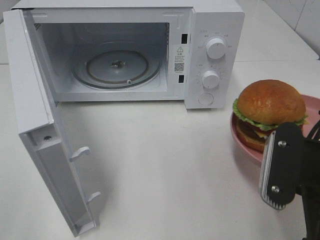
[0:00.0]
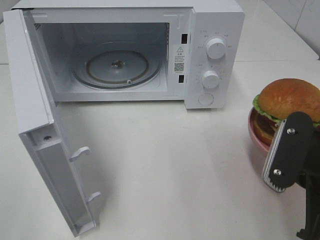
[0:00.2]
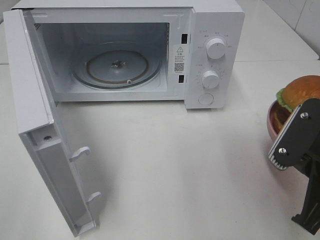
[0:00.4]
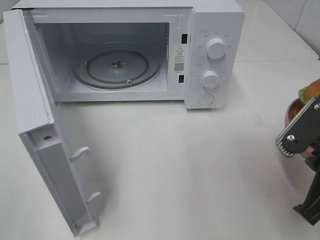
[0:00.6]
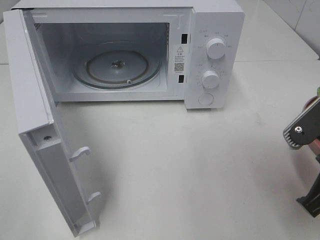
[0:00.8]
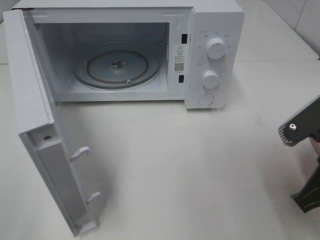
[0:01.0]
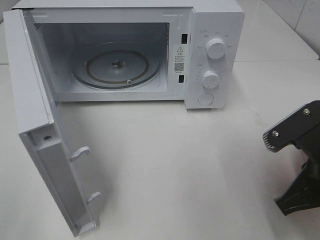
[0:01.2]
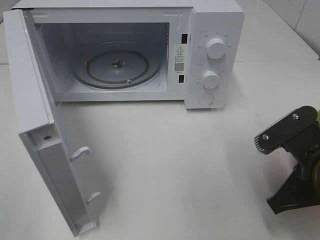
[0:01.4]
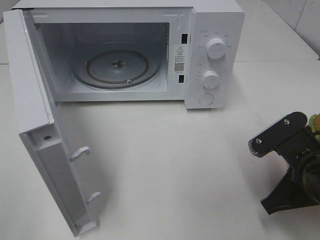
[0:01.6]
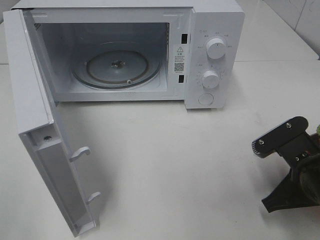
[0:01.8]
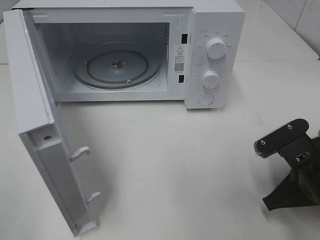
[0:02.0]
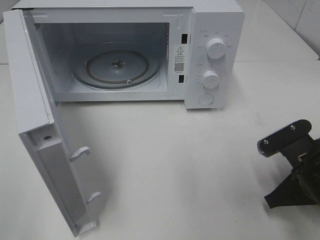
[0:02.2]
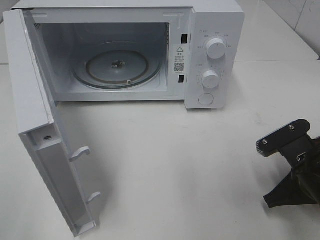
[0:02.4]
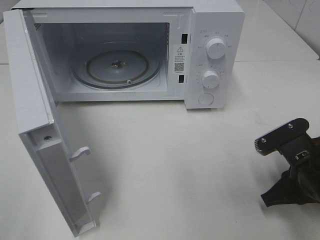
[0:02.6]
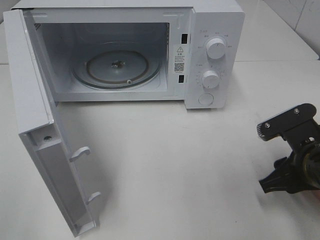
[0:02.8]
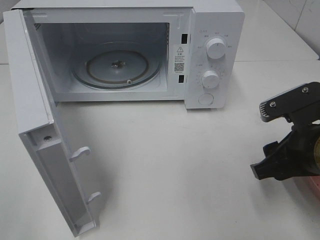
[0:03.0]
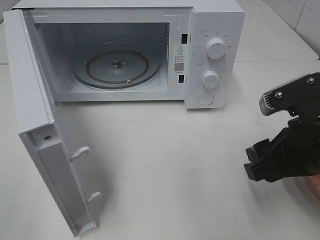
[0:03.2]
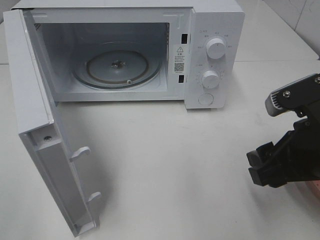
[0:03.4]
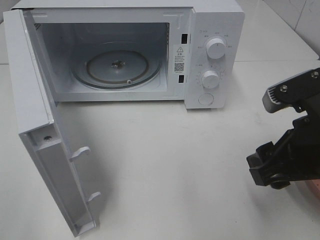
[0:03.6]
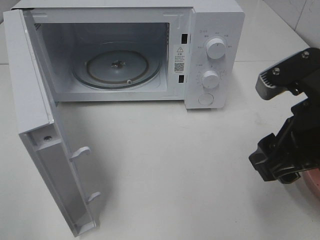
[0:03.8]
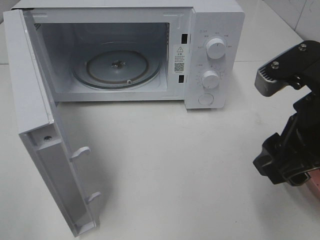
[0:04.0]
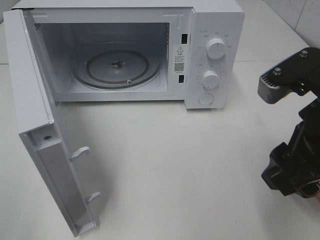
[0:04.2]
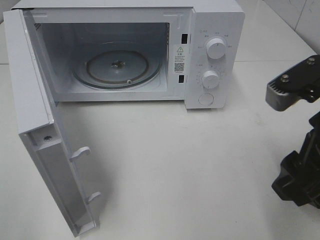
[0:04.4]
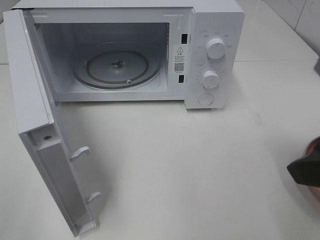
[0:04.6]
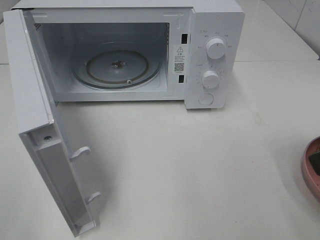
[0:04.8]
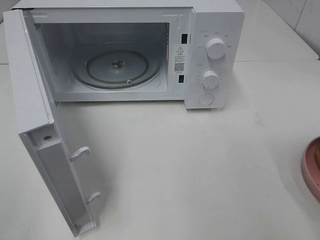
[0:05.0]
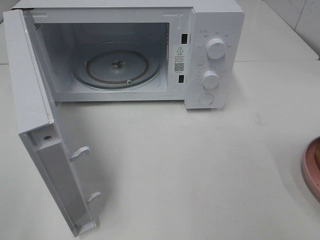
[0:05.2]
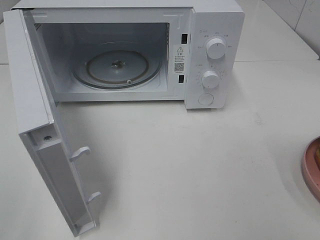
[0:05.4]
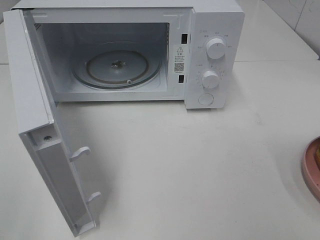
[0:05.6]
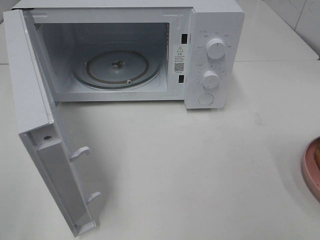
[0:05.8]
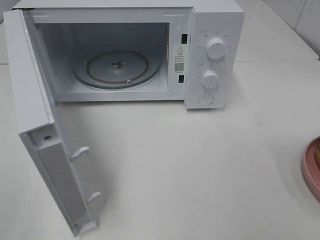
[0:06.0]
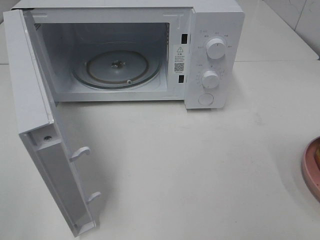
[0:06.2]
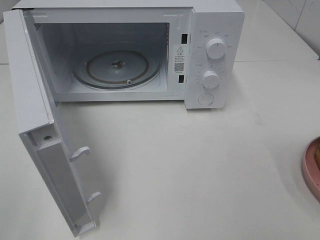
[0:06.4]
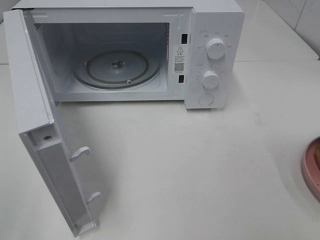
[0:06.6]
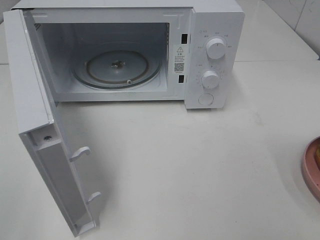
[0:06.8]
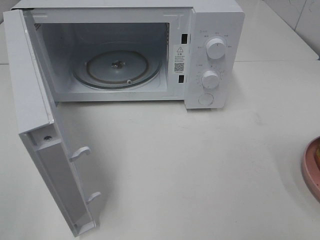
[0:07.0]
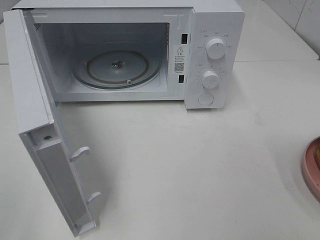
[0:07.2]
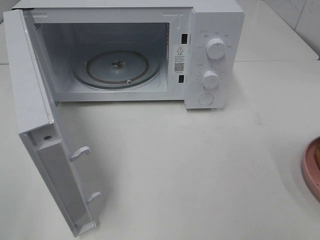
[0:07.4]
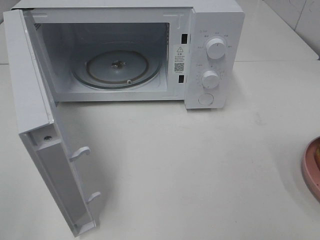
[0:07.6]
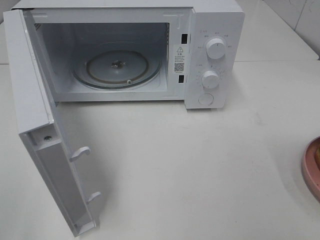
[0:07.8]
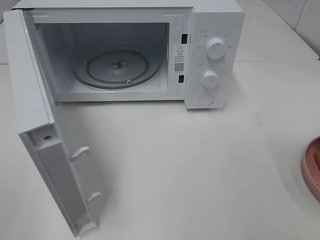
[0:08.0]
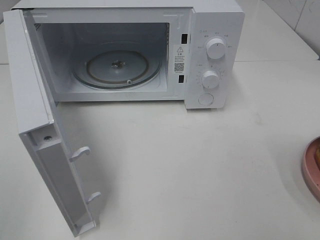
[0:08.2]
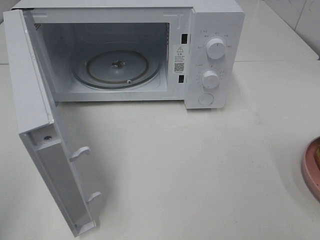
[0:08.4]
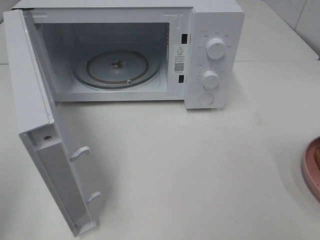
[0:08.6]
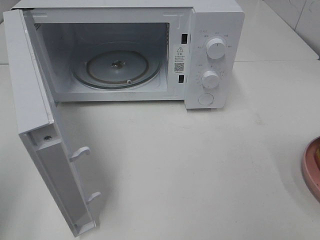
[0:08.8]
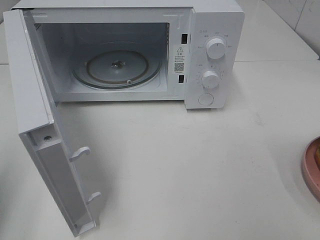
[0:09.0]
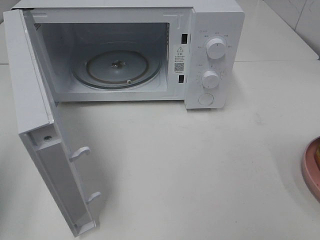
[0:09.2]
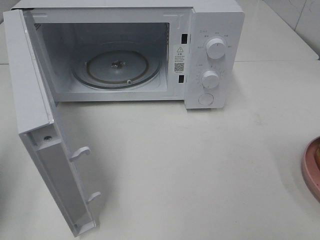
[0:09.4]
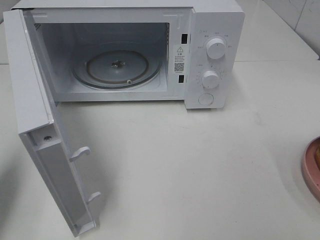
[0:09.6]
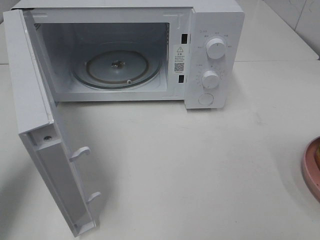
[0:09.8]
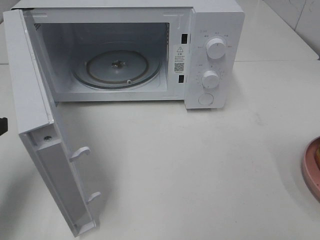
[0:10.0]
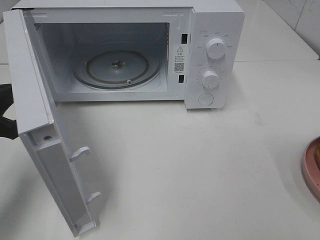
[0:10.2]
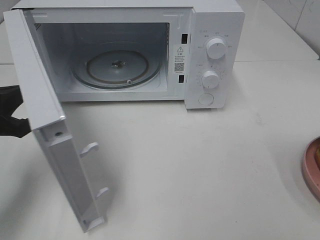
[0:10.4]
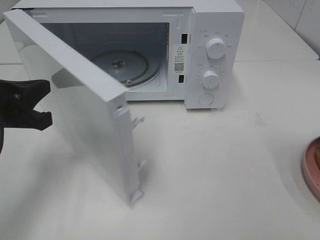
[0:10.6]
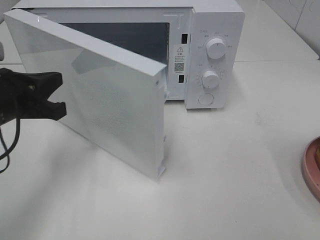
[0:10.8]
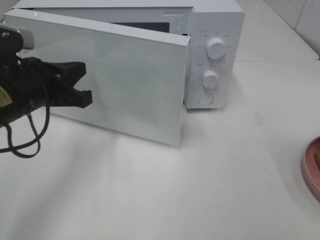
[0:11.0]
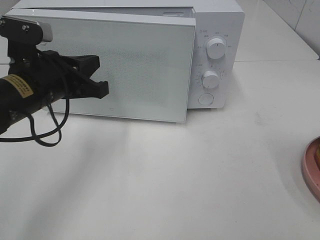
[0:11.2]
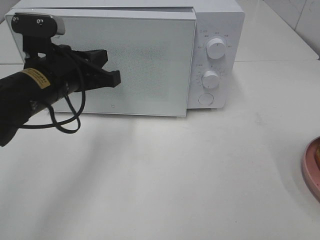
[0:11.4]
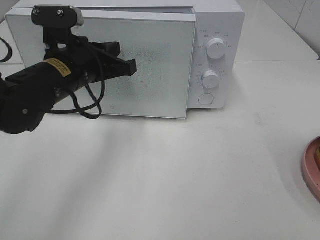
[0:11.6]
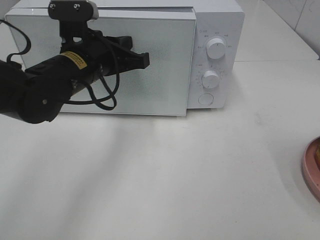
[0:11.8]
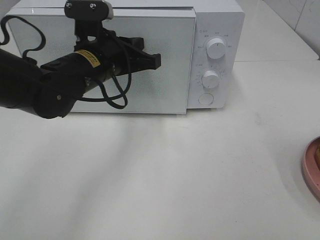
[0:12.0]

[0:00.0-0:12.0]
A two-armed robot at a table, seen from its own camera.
Task of the whole recording: Heat the burger.
Step, 0:00.0 to 0:02.6: Right hand: place the plate on the table.
0:00.0 to 0:01.6: The right gripper moves downward, roughly 5 cm.
0:01.6 to 0:03.0: The right gripper opens its fingers.
0:03.0 to 0:04.4: The right gripper goes about 10 cm upward.
0:04.4 to 0:06.0: The right gripper moves backward and to the right, roughly 20 cm.
0:06.0 to 0:07.6: Neither gripper changes place.
0:09.0 to 0:10.4: The left gripper is displaced forward, downward and to the right by roughly 15 cm.
0:10.4 to 0:12.0: The left gripper shifts some 20 cm to the right and forward.

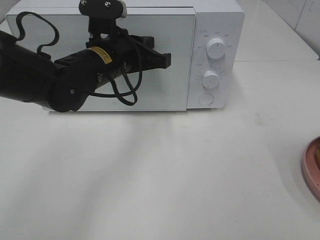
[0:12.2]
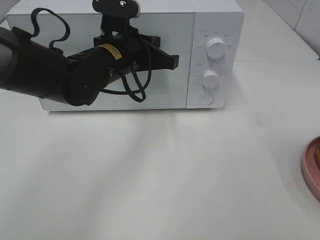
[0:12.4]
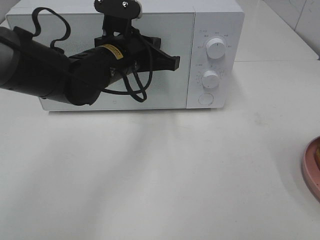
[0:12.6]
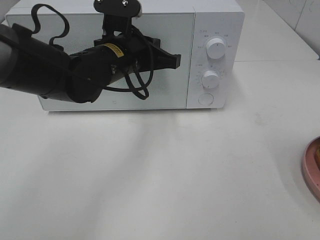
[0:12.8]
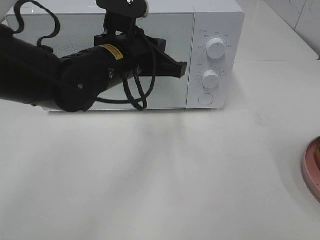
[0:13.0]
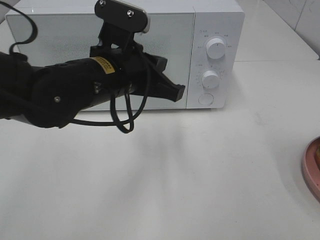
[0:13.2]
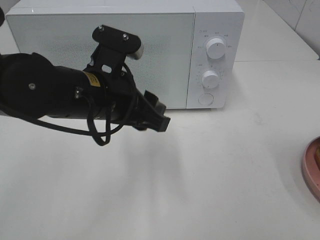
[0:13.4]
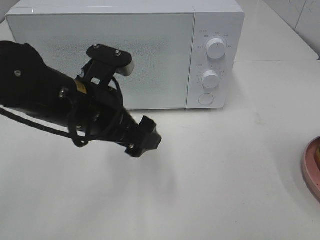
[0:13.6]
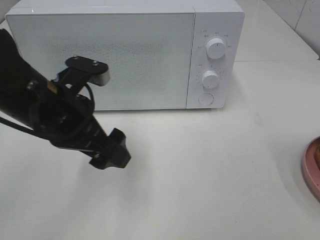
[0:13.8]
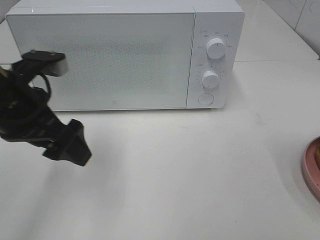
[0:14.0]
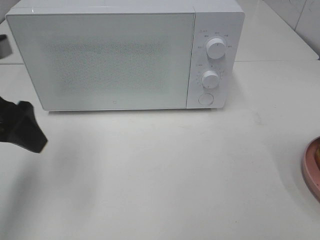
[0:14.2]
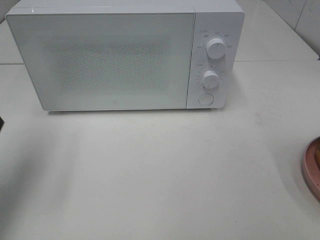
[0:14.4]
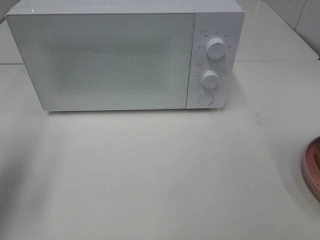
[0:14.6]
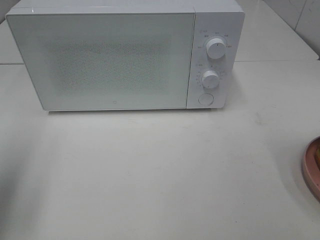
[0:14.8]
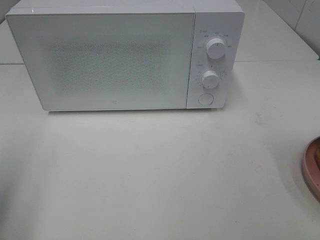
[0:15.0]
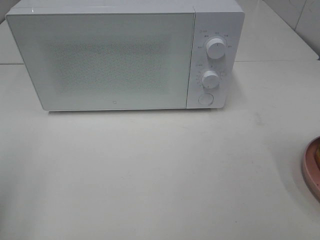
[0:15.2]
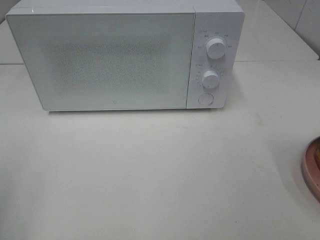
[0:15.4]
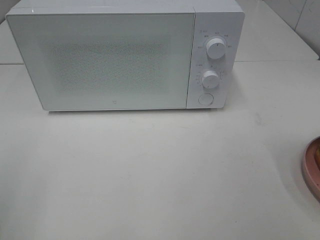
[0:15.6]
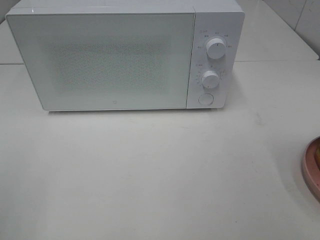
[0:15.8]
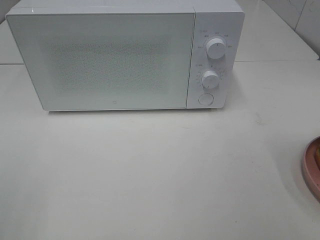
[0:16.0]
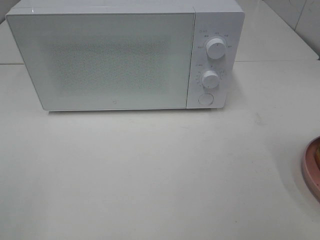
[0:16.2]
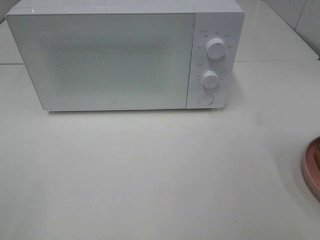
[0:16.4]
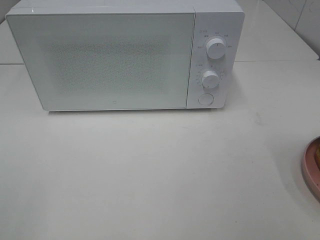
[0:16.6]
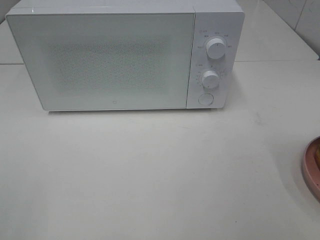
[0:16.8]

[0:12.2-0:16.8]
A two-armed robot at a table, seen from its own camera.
Task of the whole recording: Heat the burger.
0:12.2 to 0:13.8: The left gripper travels backward and to the left by some 10 cm, and opens its fingers.
0:13.8 to 0:15.2: The left gripper shifts roughly 25 cm to the left and backward.

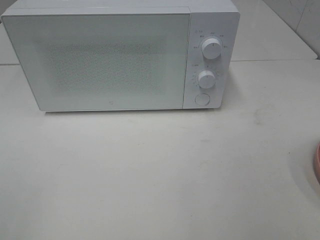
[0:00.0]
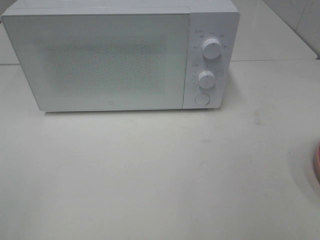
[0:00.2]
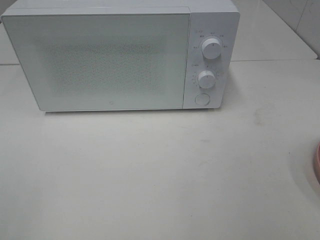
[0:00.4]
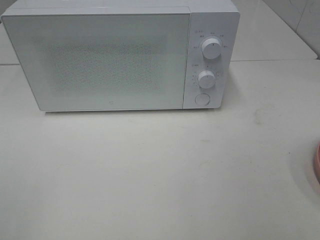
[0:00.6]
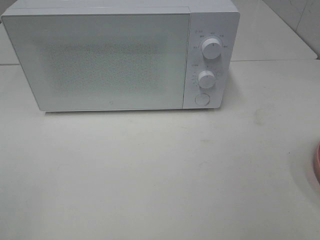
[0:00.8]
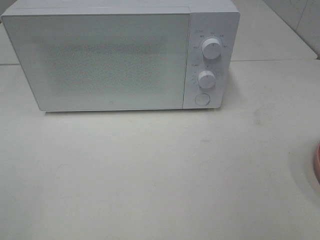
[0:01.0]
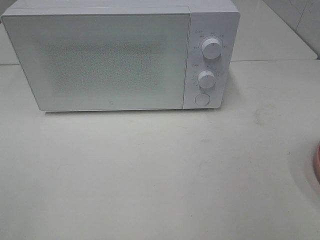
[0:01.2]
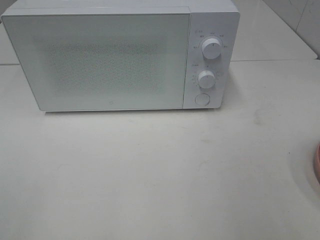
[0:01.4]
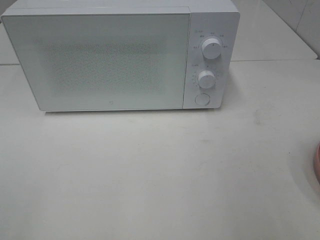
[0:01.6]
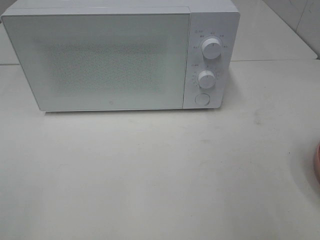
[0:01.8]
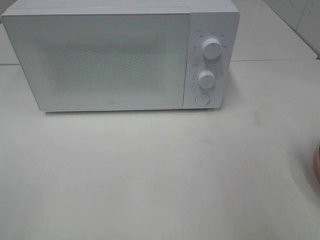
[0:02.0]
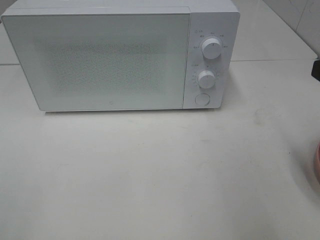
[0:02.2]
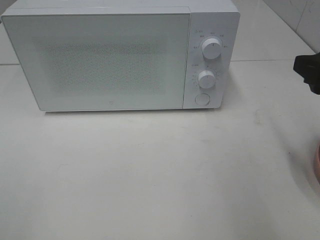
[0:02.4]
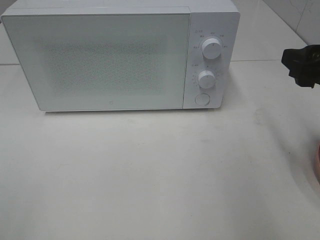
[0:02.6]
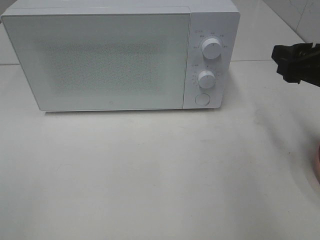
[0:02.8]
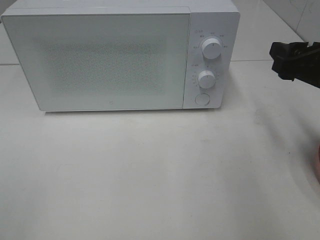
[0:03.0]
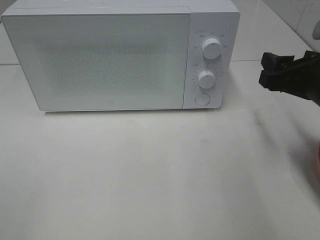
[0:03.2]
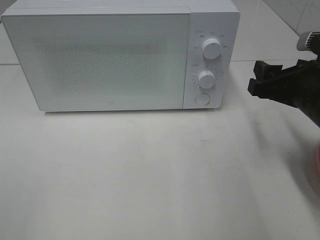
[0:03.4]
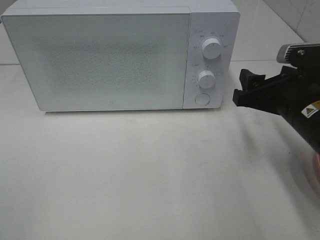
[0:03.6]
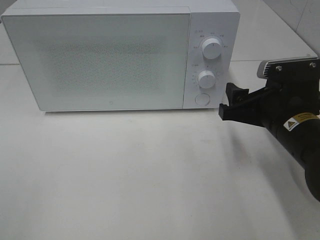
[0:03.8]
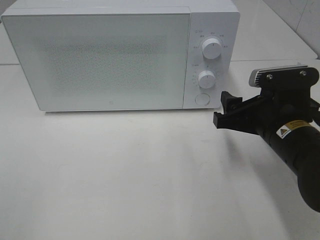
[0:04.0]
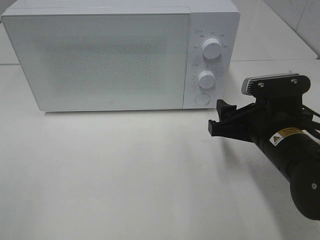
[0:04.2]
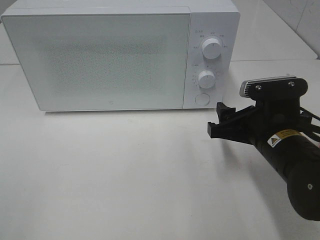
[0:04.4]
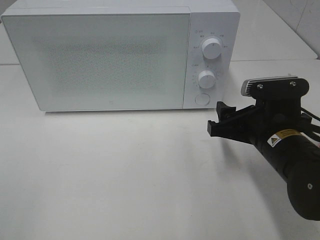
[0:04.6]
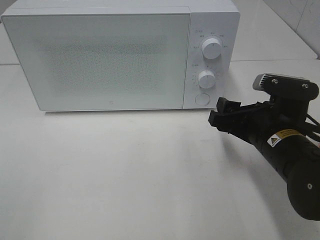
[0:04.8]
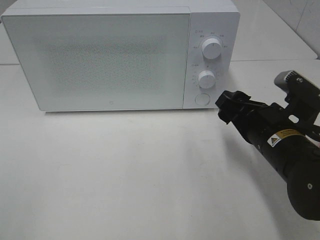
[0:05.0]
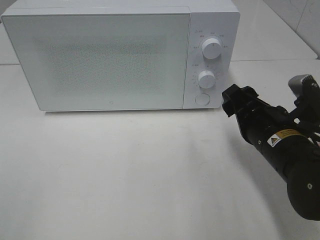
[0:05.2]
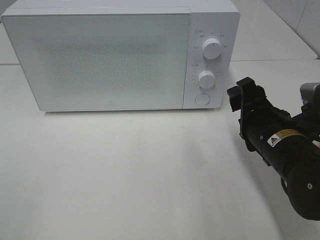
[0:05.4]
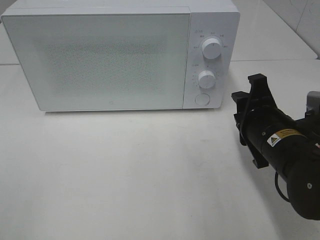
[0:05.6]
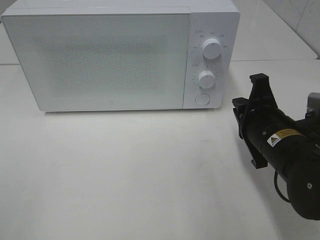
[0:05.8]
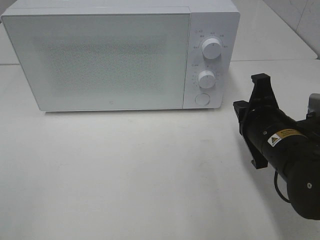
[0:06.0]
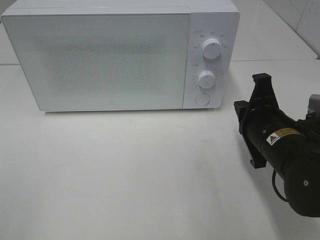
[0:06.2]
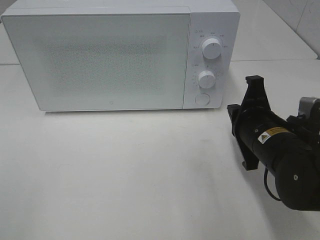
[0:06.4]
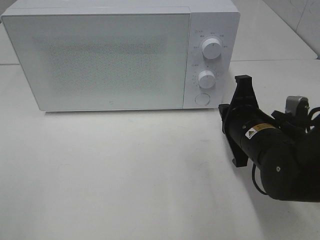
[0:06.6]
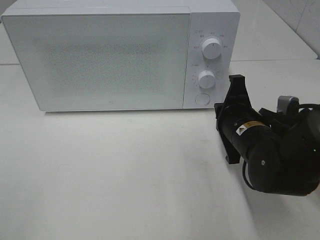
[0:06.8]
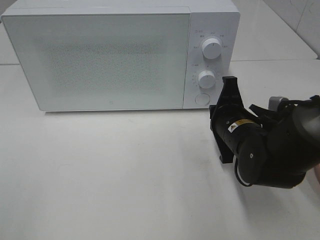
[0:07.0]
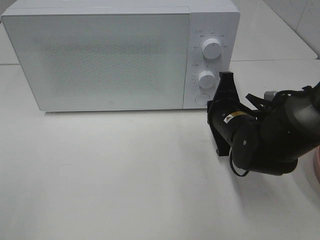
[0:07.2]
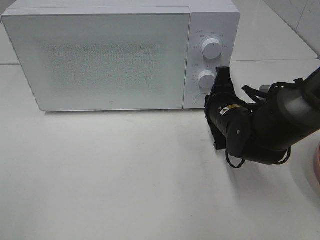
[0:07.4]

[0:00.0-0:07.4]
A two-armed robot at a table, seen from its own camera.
Task of the whole recording: Heat the burger.
0:01.4 to 0:03.0: The right gripper is displaced forward and downward by roughly 20 cm.
0:03.0 to 0:04.4: The right gripper heads downward and to the left, covering roughly 10 cm.
0:04.4 to 0:06.0: The right gripper closes up.
0:06.0 to 0:07.4: The right gripper moves forward, about 10 cm.
